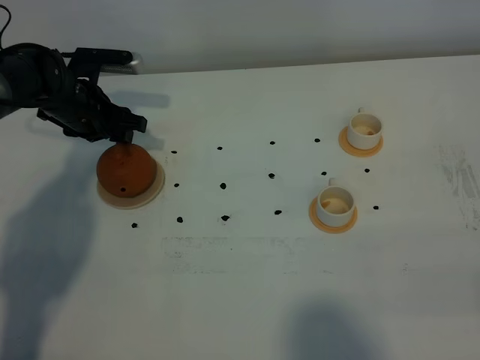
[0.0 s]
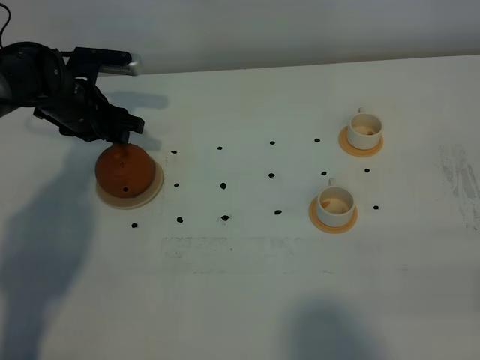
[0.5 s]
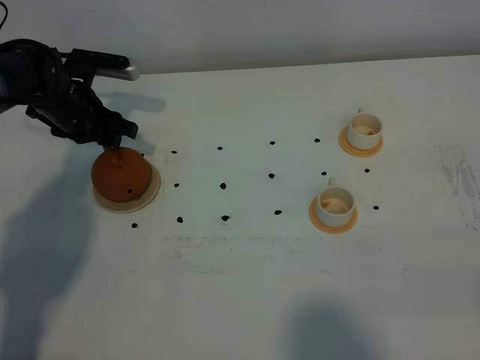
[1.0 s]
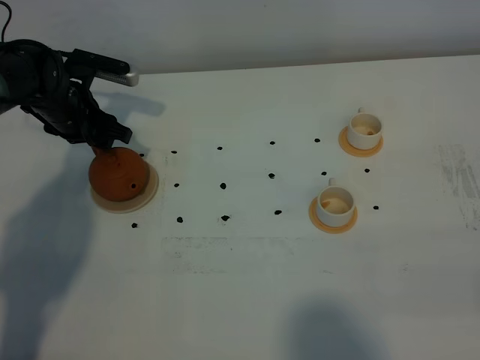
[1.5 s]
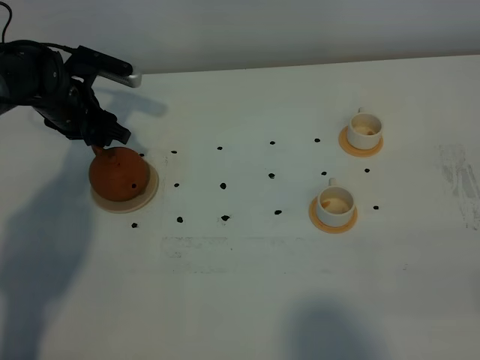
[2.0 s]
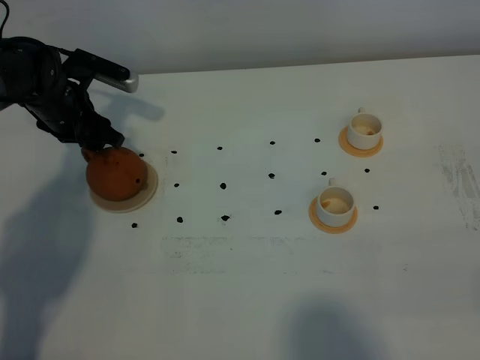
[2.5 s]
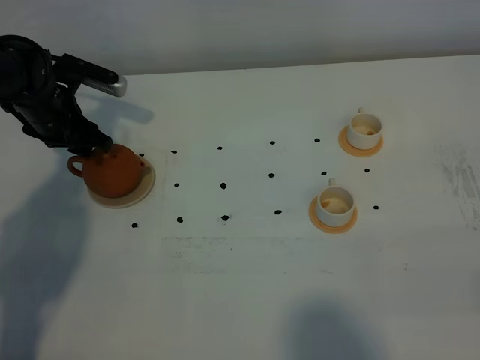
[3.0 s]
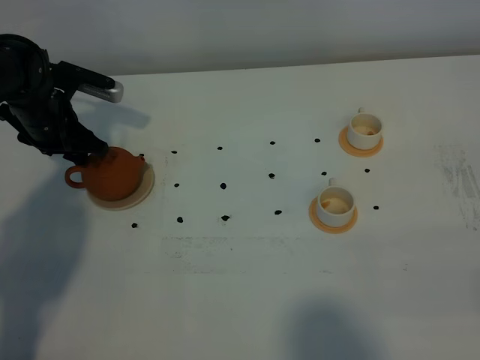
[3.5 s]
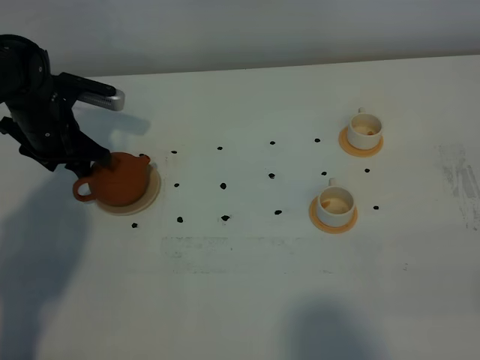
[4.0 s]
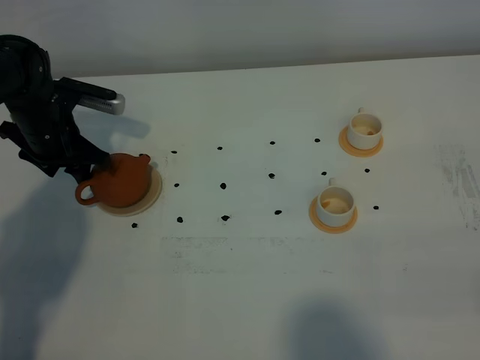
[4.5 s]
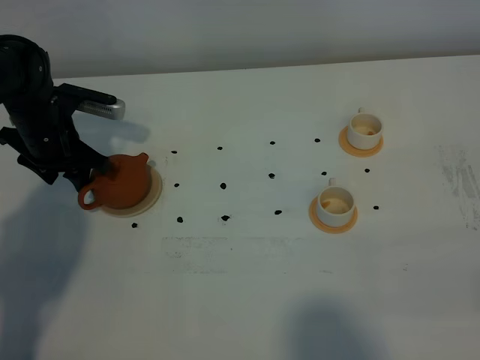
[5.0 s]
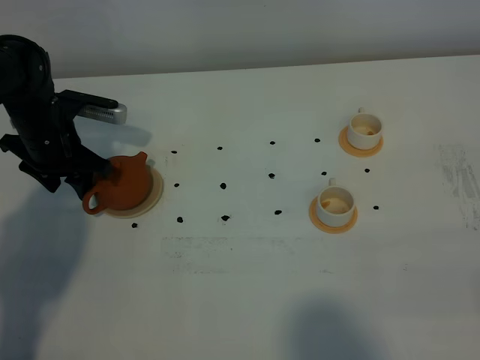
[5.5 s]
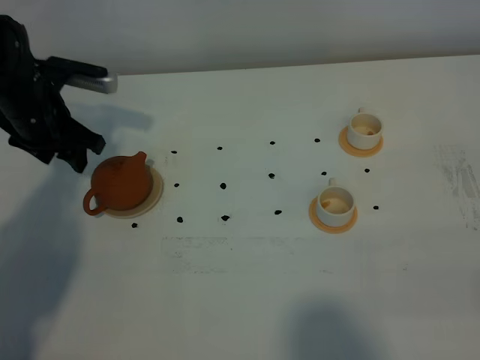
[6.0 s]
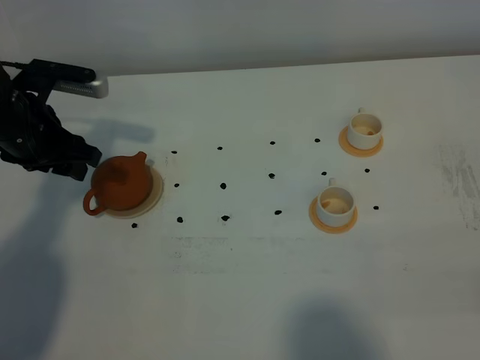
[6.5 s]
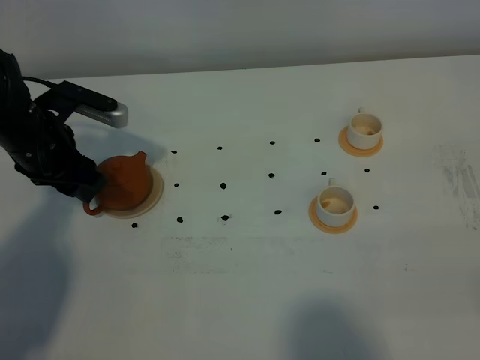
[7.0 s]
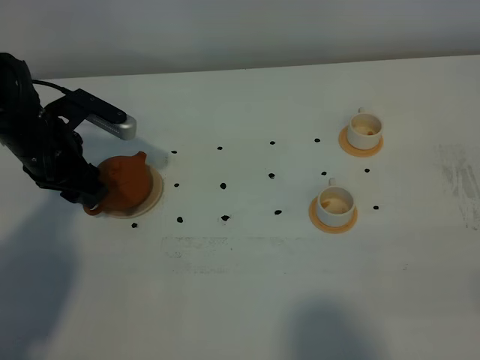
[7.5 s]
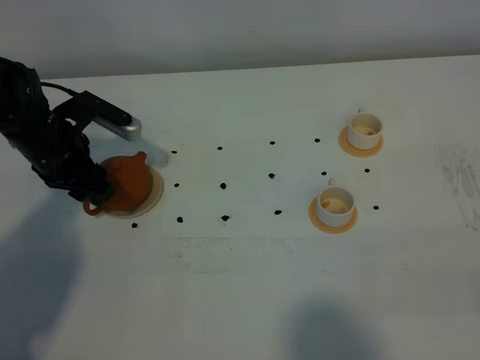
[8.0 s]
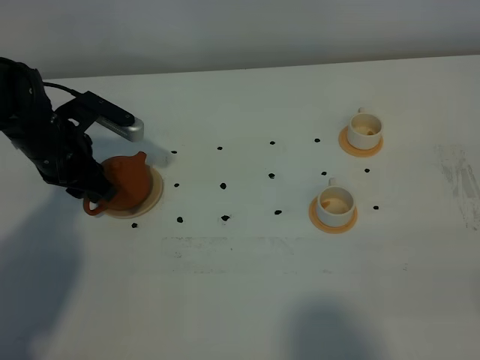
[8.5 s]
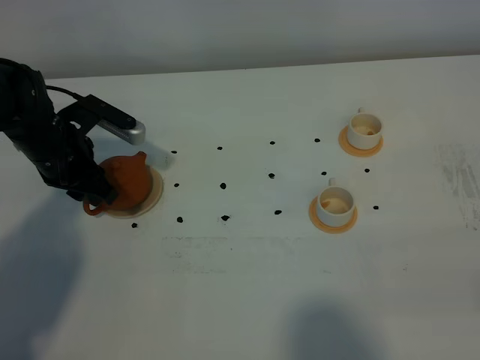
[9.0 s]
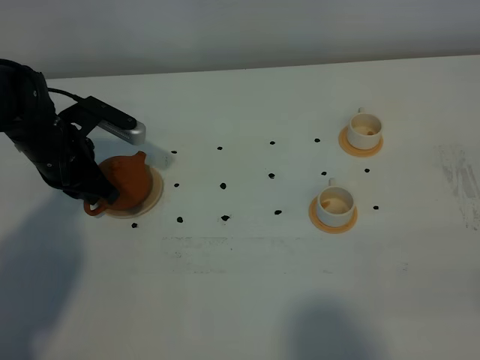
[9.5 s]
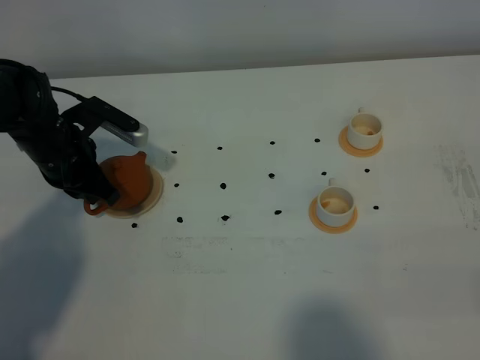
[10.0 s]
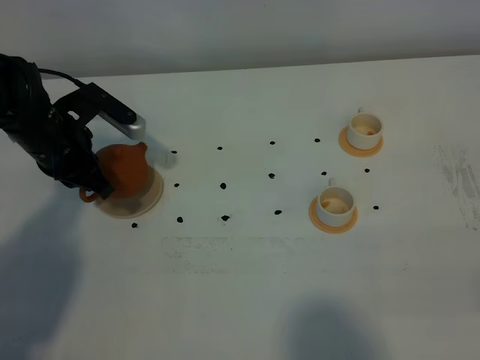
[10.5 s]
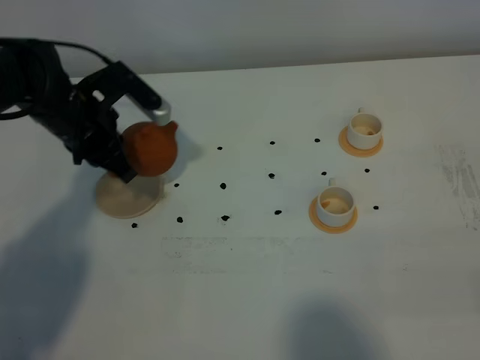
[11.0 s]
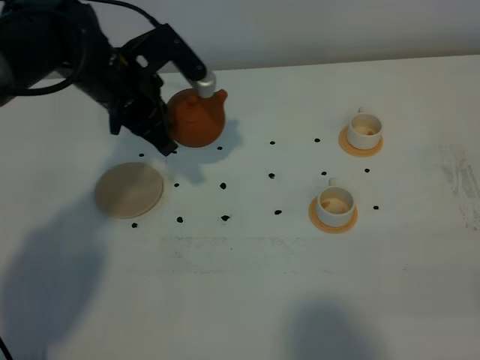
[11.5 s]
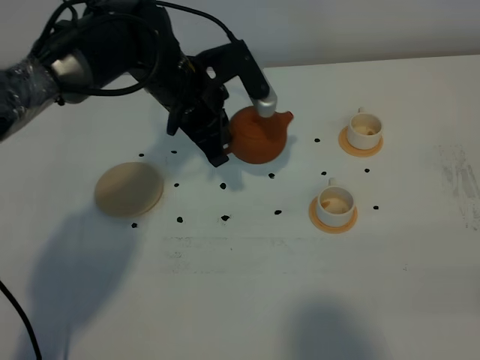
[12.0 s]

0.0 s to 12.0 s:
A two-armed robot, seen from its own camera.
Task of the whole recording: grasp the brown teapot and pour the tea into the two white teacups one by one, put the brown teapot back in its original place.
Step, 0.0 to 10.0 s: Pick up the teapot with the left gripper.
0.0 to 2.0 s: There are only small adjustments of the grippers.
2.0 to 4.0 s: The grippers move only a little.
4.0 to 6.0 s: The left gripper ends up approximately 5 cm from where it was.
6.0 to 8.0 s: The left gripper changes place by some 5 cm.
8.0 to 10.0 s: The left gripper closes its fingers.
10.0 to 12.0 s: The left gripper travels to the right by some 15 cm.

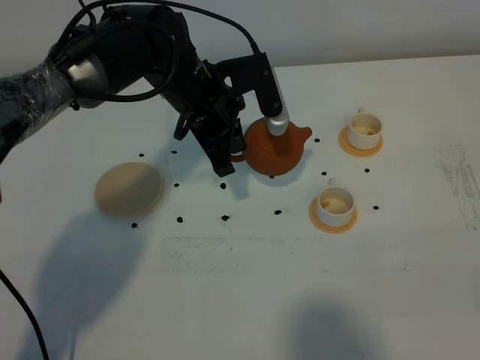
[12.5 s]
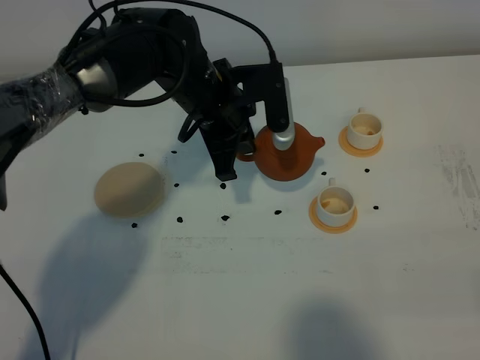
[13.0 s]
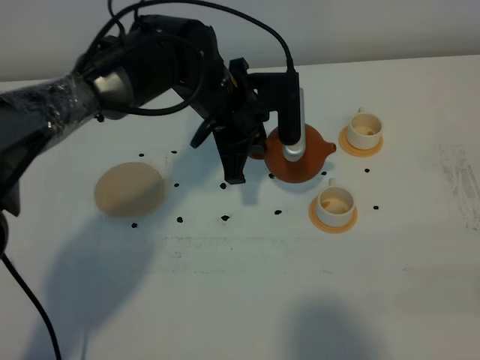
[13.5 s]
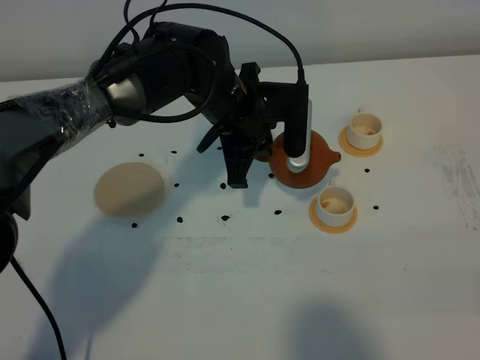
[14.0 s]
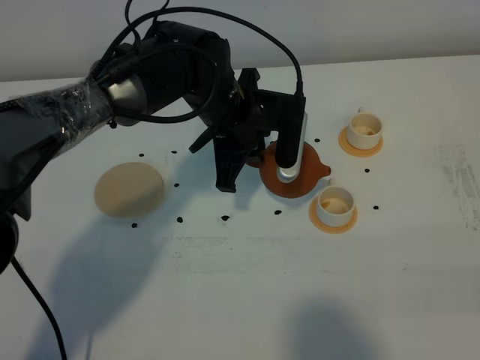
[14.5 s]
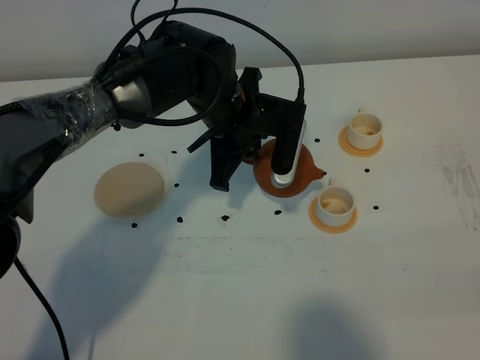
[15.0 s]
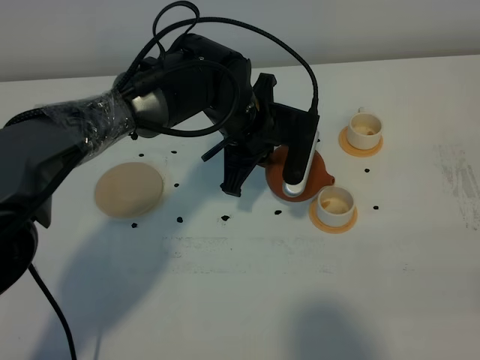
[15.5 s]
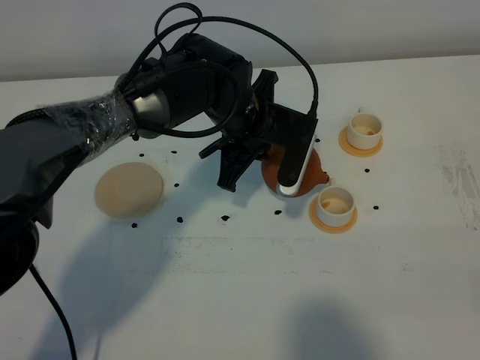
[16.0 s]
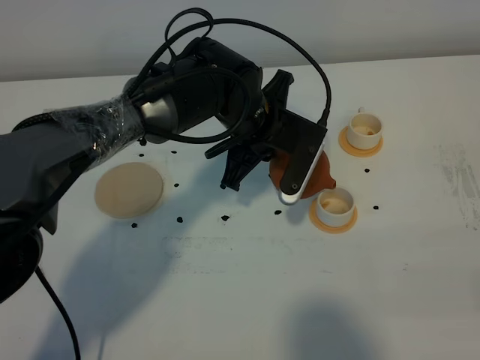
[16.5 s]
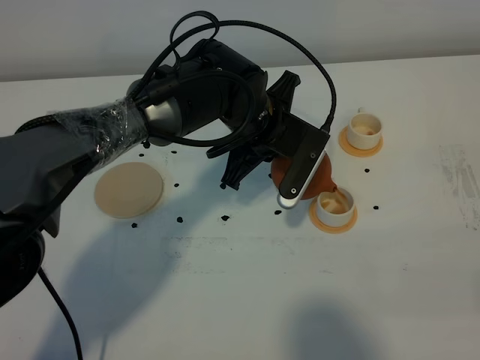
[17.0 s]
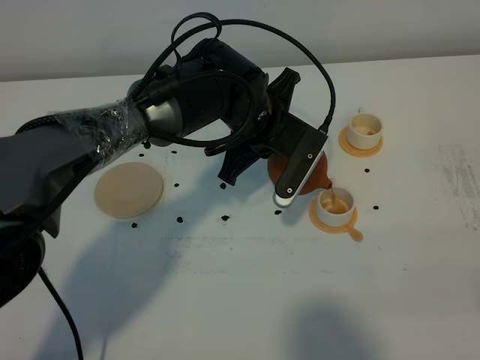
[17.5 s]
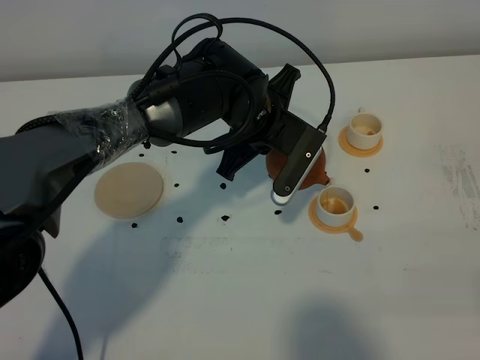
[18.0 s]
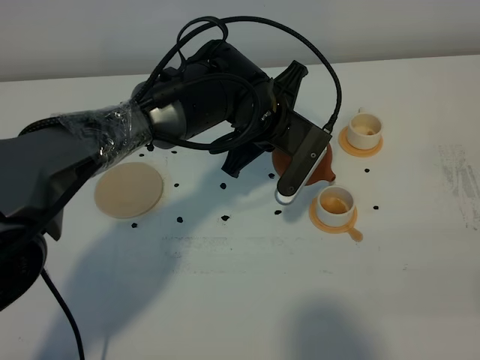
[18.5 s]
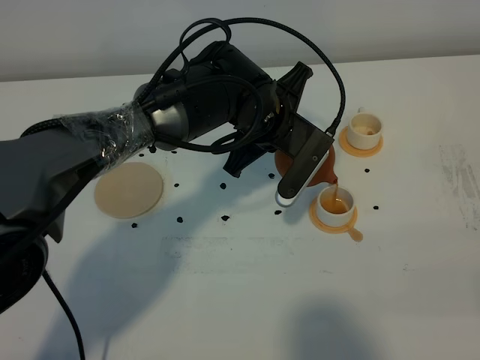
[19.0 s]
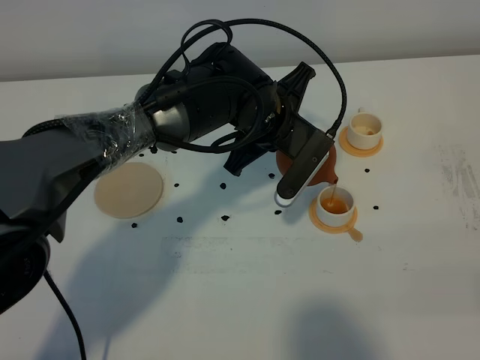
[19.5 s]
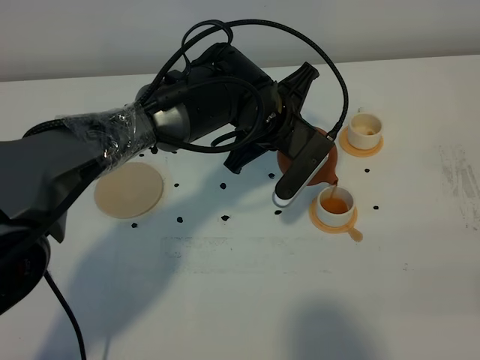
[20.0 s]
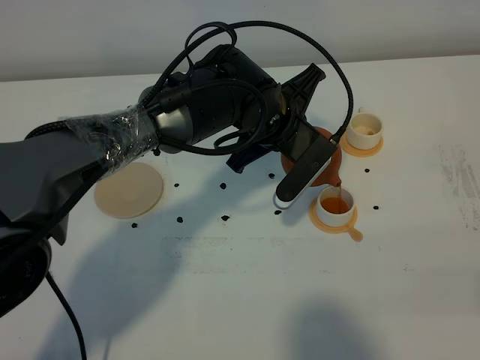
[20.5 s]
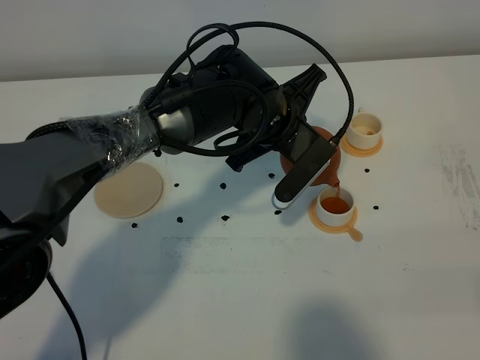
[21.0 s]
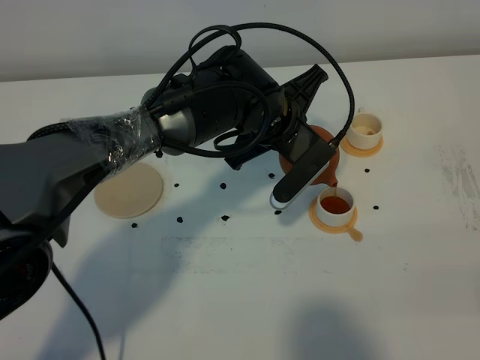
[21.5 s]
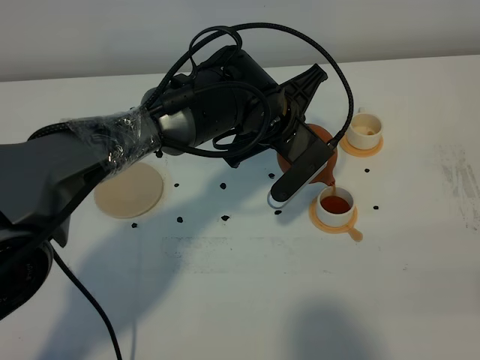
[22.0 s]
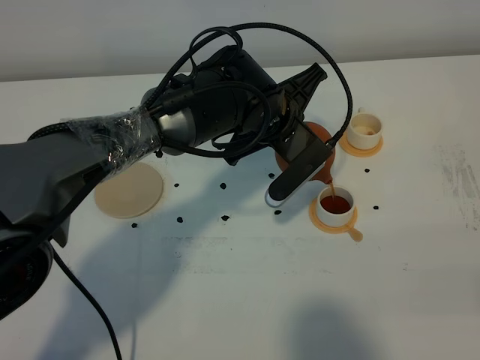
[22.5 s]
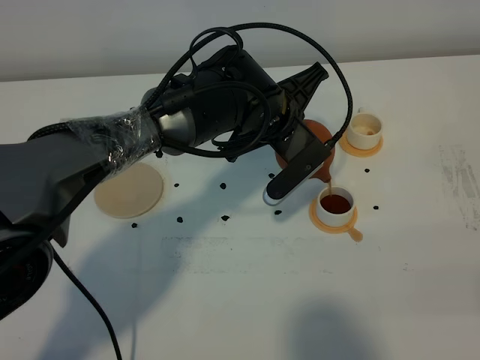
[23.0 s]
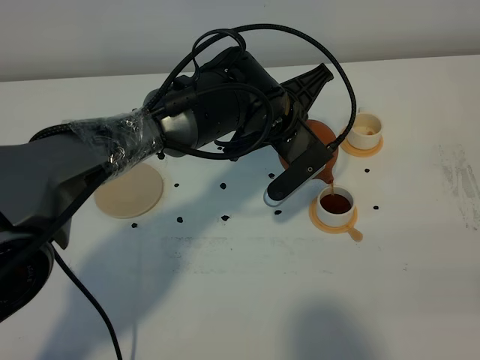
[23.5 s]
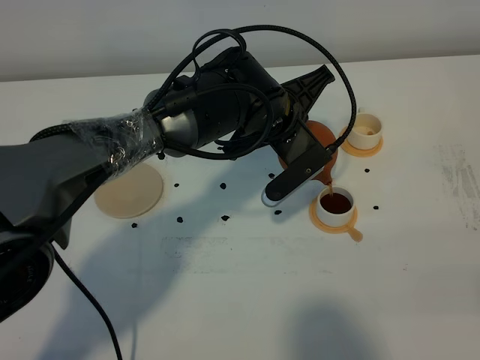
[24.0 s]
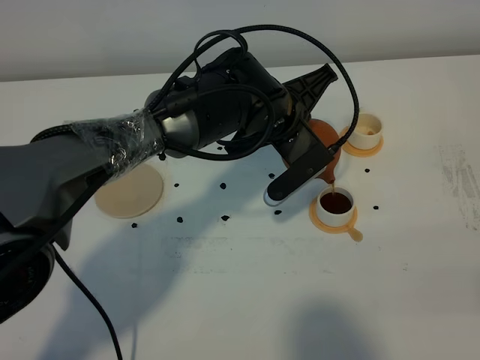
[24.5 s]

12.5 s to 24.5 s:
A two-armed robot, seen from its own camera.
Task of the whole recording: grasp the brown teapot and pour the tea into the two white teacups one by one, put the brown teapot back in its original place.
16.5 to 18.5 s: The grippers stay close to where they were, moving slightly.
18.5 to 22.5 s: There are only small adjustments of the grippers.
22.5 to 24.5 s: The grippers stay close to where they were, moving slightly.

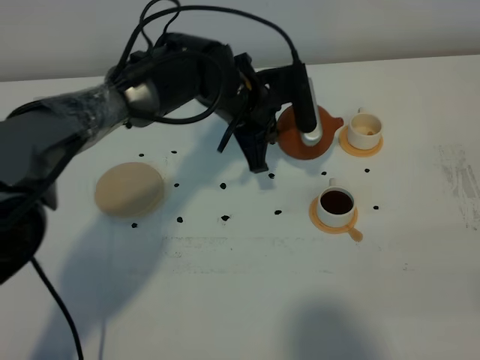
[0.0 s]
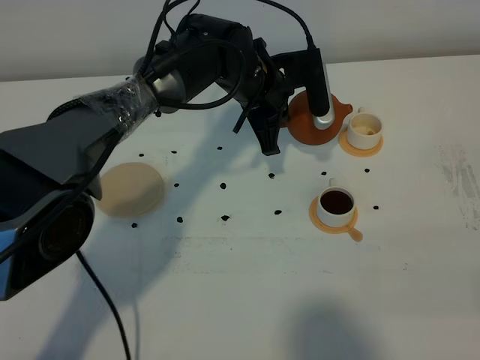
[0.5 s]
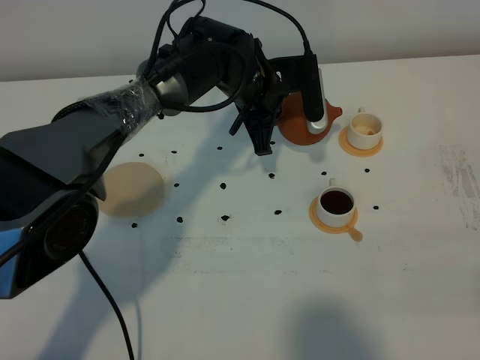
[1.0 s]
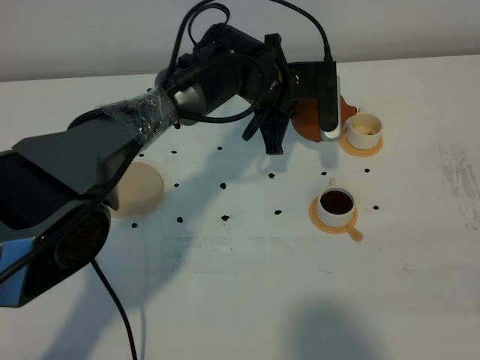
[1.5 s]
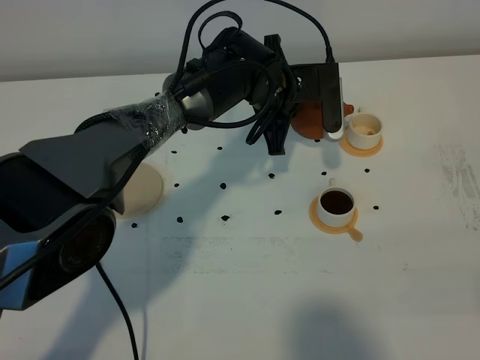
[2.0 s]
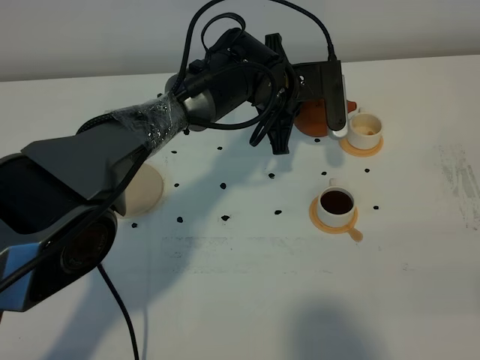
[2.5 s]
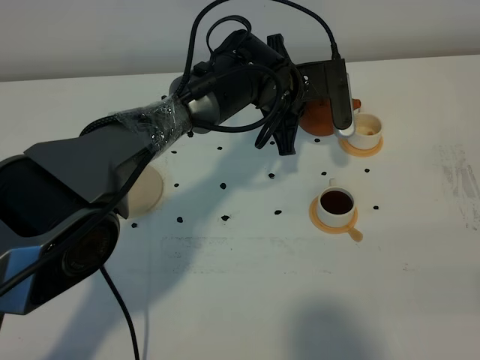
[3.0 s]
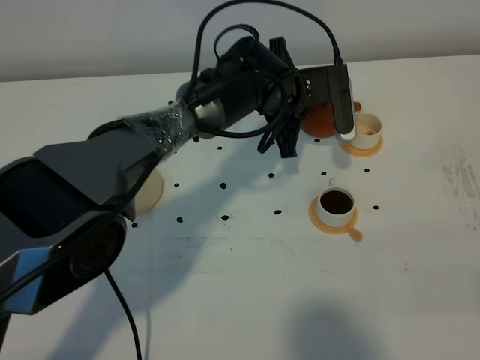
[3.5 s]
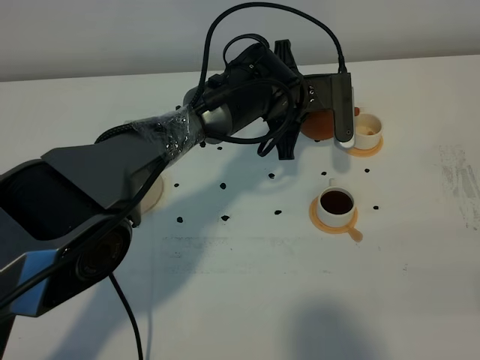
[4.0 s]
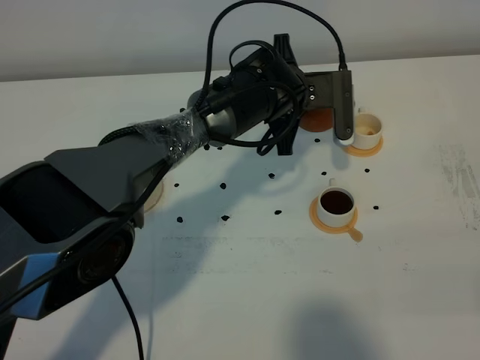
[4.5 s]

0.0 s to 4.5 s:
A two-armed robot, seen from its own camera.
Task of the whole recording: grasp the brown teapot and pour the tea into the two white teacups one by one, put the brown teapot back in its original place.
2.0 to 4.5 s: The grippers stay close to where they were, moving slightly.
